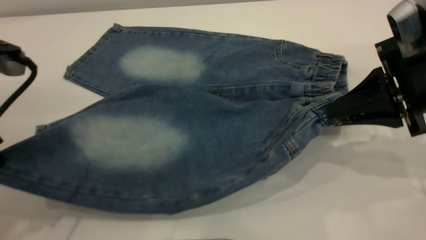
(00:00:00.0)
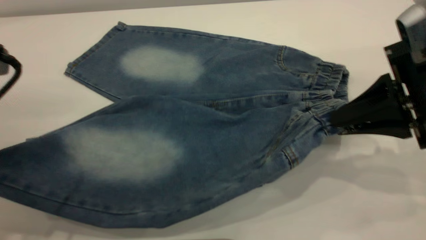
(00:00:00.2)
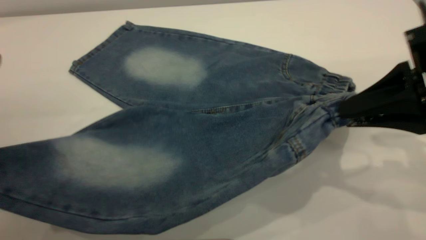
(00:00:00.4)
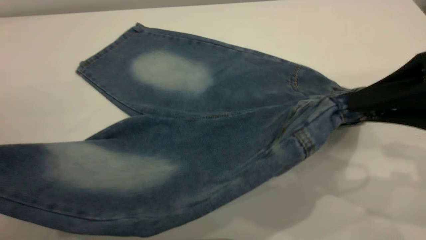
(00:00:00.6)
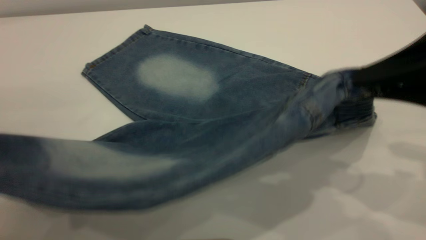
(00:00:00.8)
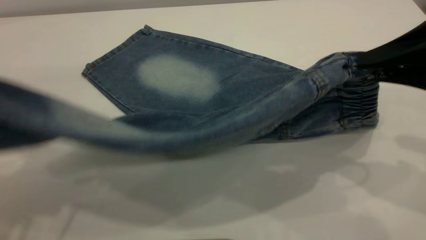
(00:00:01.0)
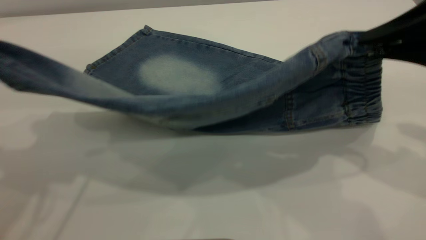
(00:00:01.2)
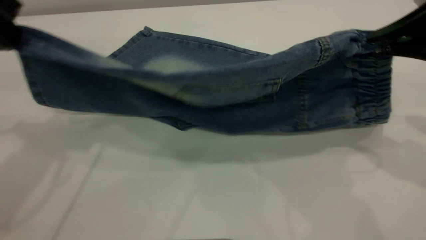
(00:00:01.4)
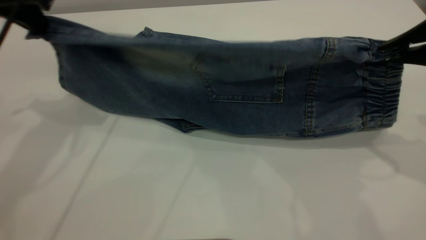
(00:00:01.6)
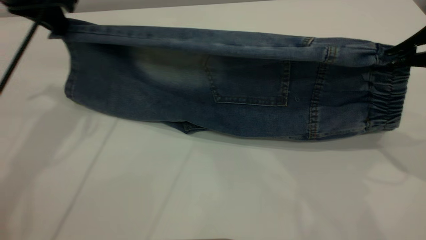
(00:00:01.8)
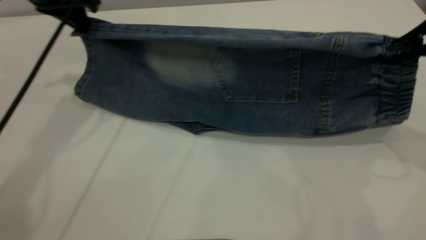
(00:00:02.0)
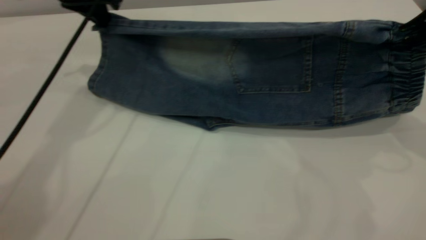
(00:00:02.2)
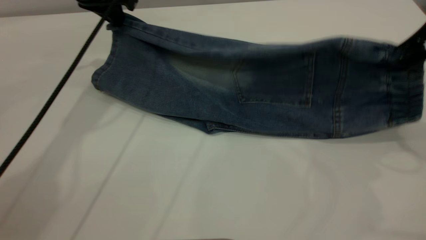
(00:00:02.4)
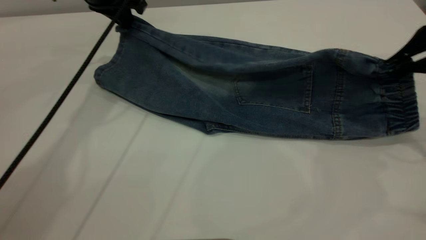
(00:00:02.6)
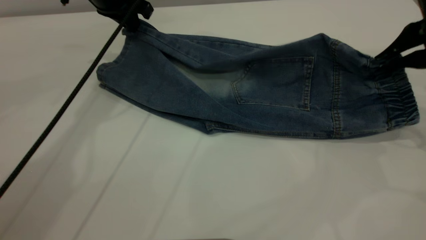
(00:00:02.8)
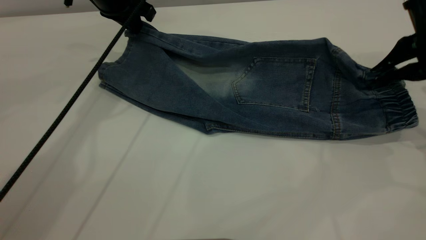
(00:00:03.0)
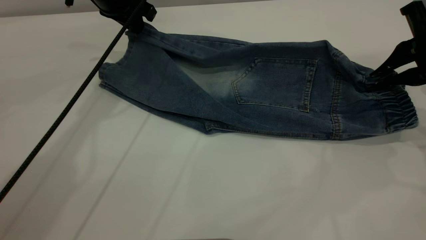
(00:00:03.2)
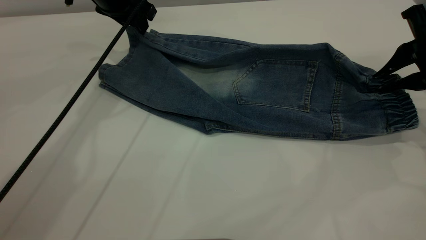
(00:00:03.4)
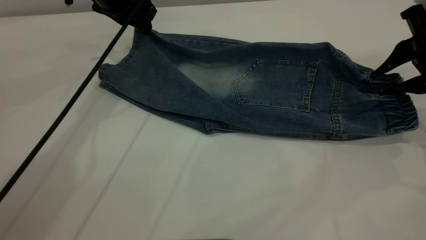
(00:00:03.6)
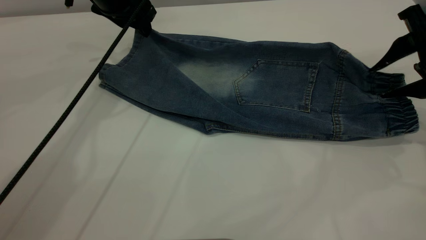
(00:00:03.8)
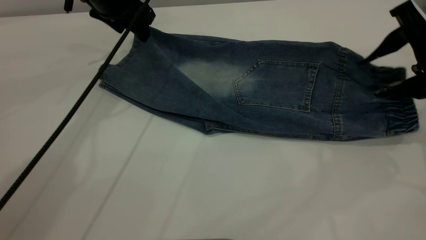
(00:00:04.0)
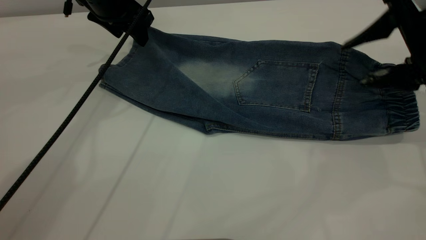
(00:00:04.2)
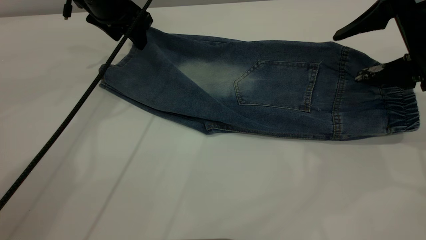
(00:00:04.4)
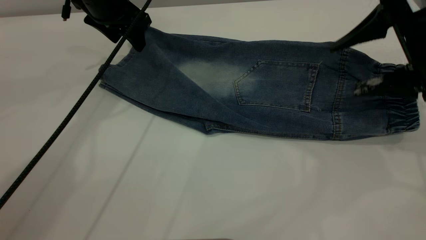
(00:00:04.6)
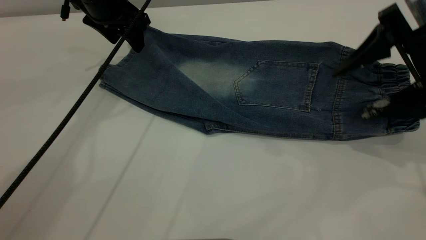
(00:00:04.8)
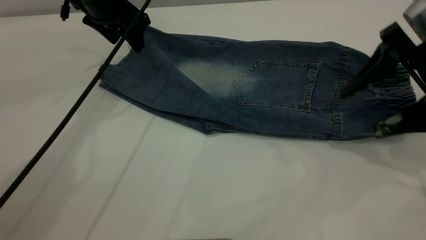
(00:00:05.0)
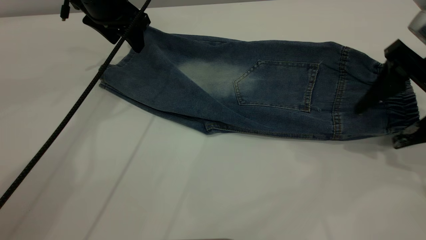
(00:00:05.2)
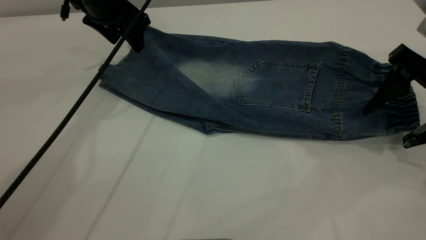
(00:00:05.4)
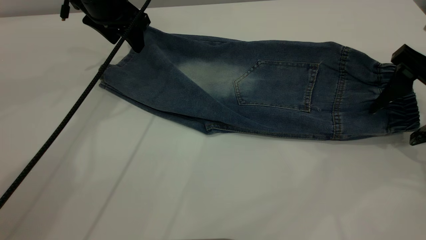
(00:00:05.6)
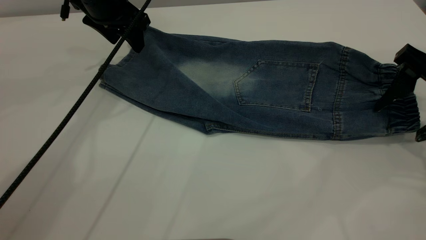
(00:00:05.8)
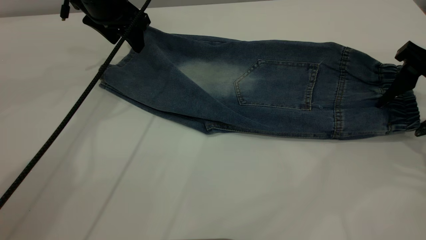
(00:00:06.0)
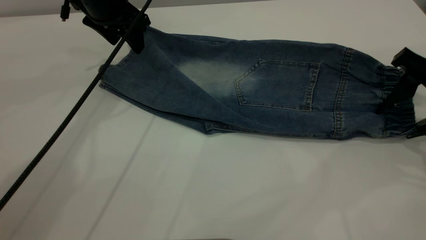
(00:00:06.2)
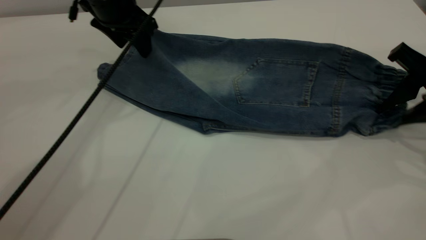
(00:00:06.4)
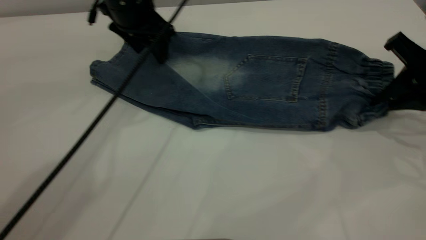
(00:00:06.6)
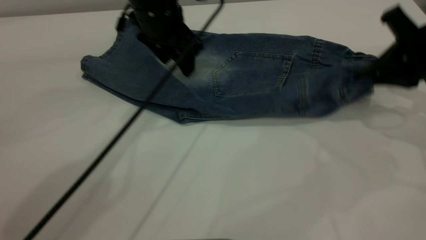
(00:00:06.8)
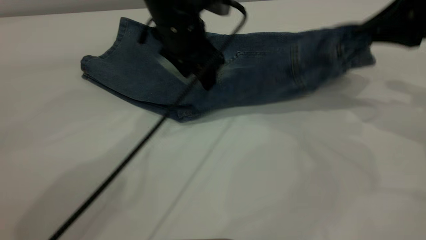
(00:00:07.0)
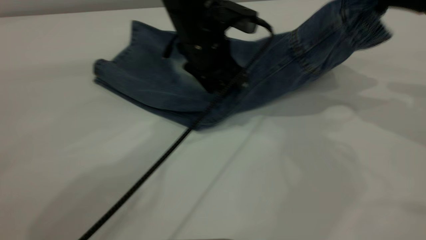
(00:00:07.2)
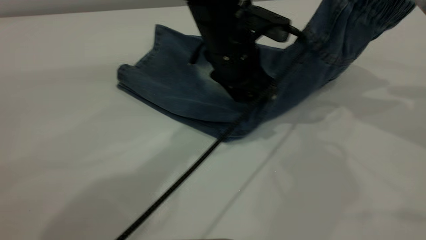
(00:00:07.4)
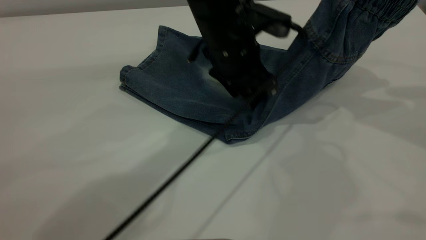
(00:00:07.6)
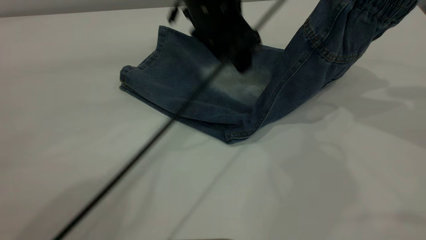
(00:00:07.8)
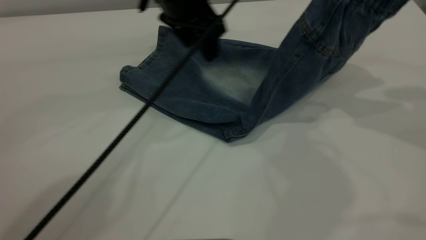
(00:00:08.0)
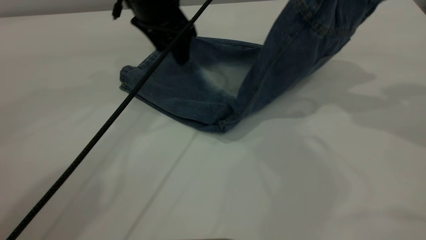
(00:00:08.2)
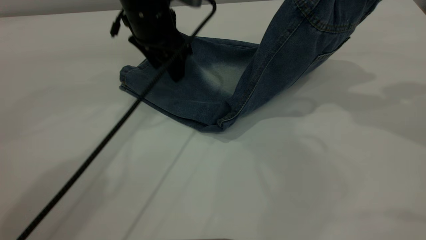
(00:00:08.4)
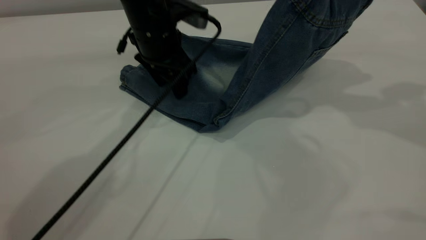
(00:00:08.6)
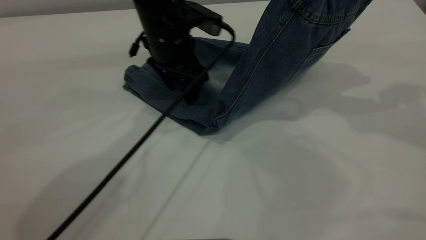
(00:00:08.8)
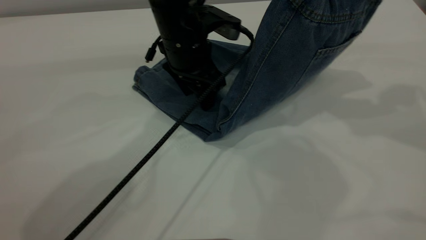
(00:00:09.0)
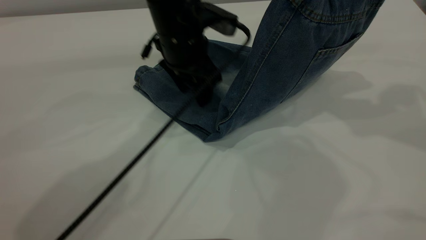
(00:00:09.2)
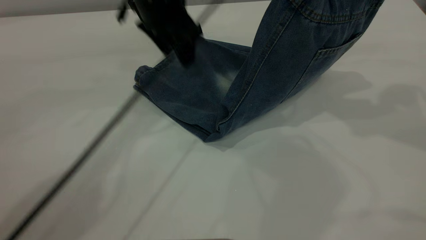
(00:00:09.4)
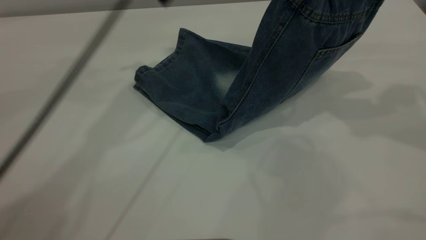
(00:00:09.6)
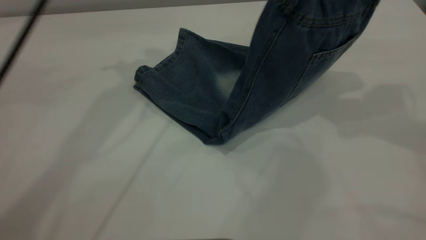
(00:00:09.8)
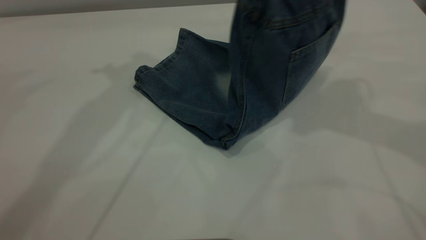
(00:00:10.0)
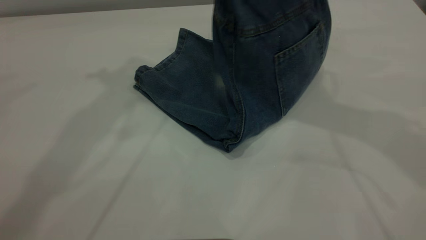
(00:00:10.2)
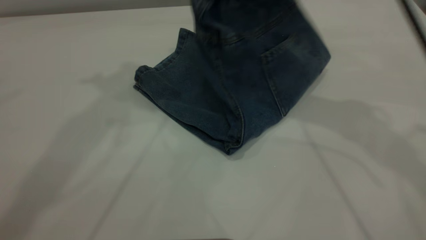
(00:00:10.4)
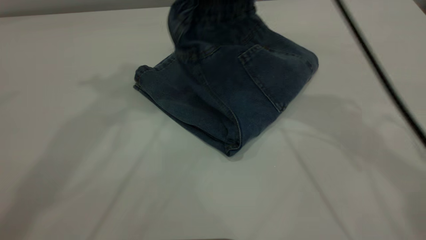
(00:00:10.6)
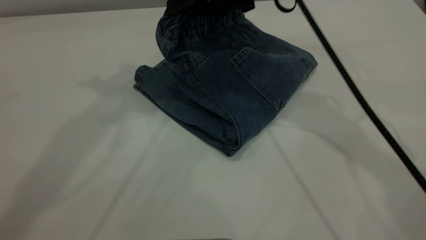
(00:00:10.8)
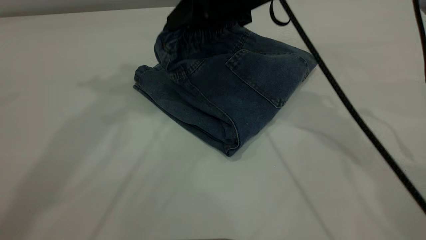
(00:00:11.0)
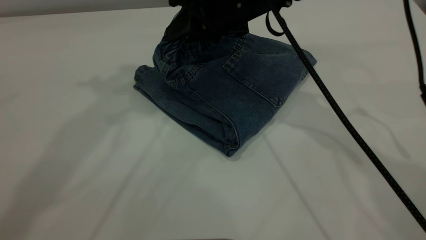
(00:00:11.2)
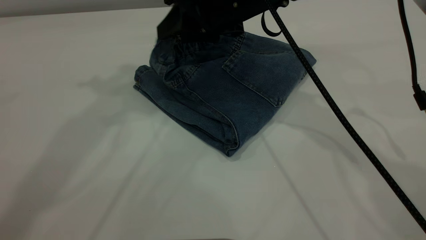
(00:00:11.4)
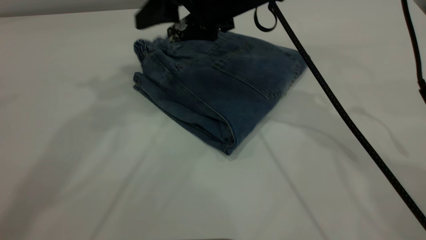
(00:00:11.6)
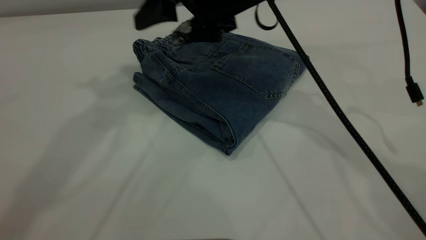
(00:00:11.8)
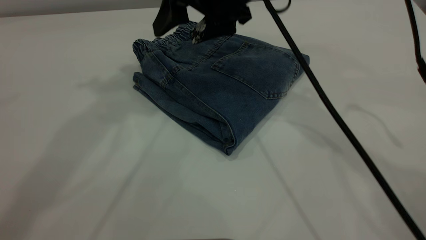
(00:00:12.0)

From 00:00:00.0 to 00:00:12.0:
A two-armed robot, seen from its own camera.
Step, from 00:00:00.0 to 00:00:05.2: Fold the bottom of the pants upward.
From 00:00:00.0 to 00:00:01.6: The right gripper moves upward, roughly 10 cm, while the left gripper shifts about 15 cm forward and upward.
From 00:00:01.6 to 00:00:03.0: The right gripper shifts some 10 cm forward and downward. The left gripper shifts about 15 cm forward, to the right and downward.
From 00:00:03.0 to 00:00:04.4: The left gripper opens up. Meanwhile the right gripper opens.
From 00:00:06.0 to 00:00:07.6: The right gripper moves upward, some 15 cm, and closes its fingers; the left gripper moves to the right and backward, roughly 20 cm.
From 00:00:07.6 to 00:00:09.0: The left gripper shifts approximately 5 cm to the left.
From 00:00:09.0 to 00:00:10.4: The left gripper travels upward by about 30 cm. Meanwhile the right gripper travels to the left and forward by about 15 cm.
From 00:00:10.4 to 00:00:12.0: The right gripper travels to the left by some 5 cm, and opens its fingers.

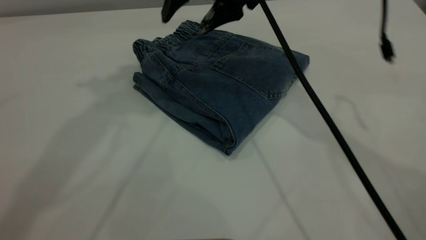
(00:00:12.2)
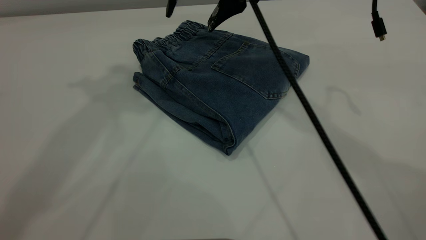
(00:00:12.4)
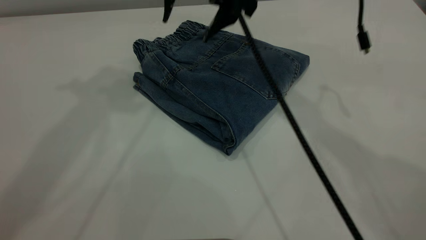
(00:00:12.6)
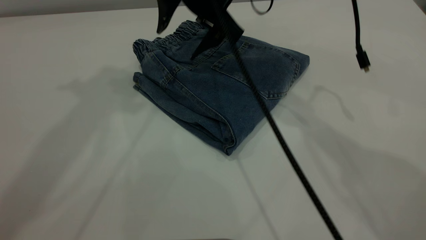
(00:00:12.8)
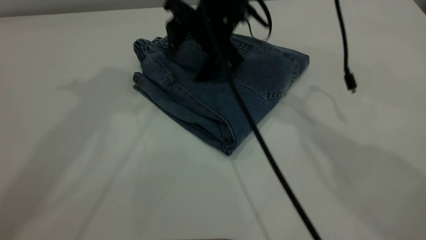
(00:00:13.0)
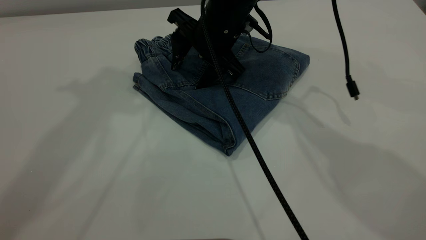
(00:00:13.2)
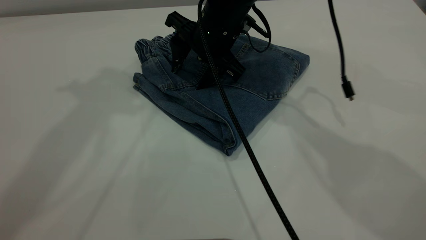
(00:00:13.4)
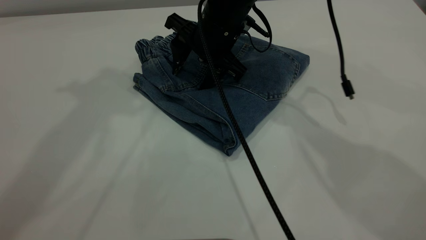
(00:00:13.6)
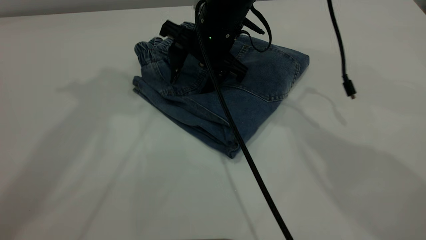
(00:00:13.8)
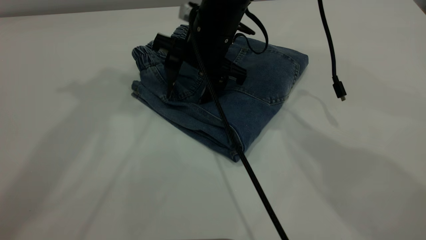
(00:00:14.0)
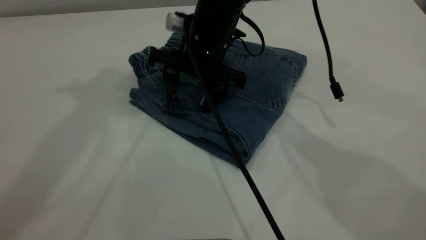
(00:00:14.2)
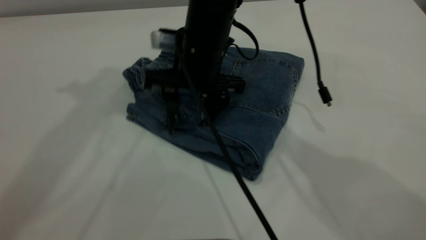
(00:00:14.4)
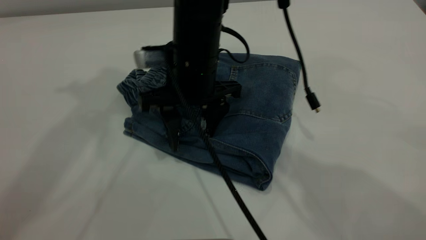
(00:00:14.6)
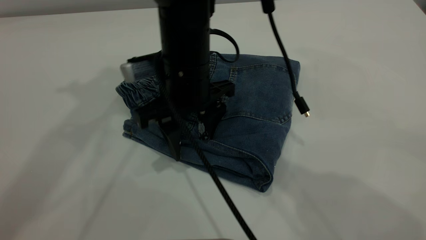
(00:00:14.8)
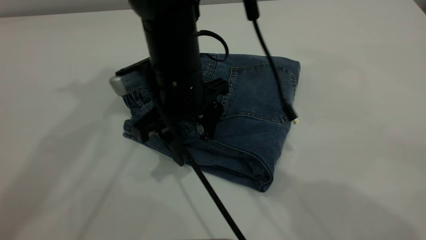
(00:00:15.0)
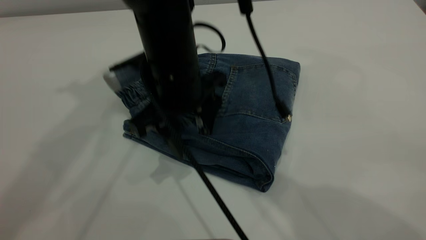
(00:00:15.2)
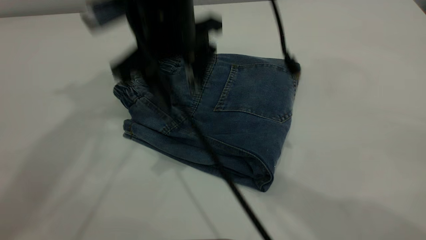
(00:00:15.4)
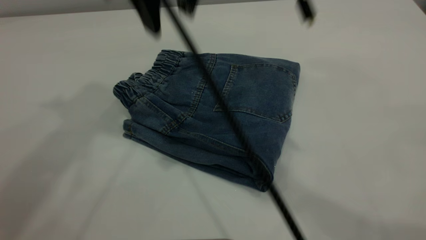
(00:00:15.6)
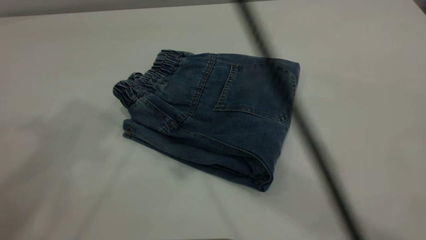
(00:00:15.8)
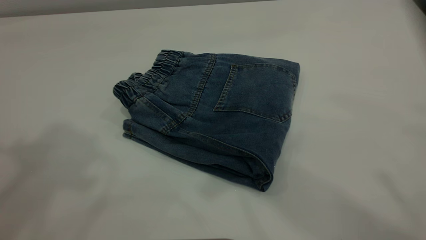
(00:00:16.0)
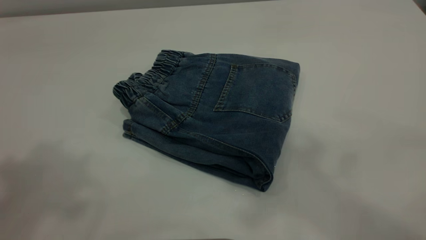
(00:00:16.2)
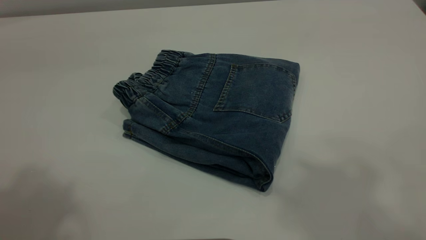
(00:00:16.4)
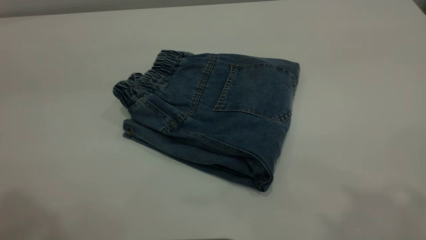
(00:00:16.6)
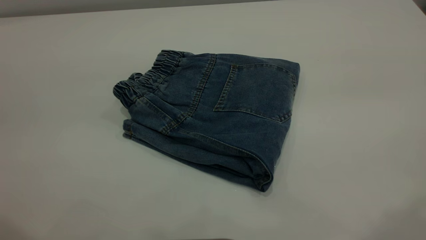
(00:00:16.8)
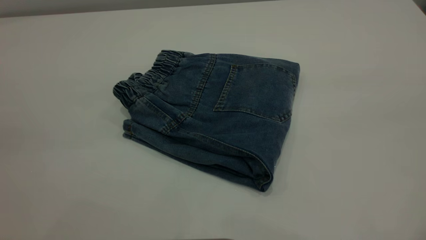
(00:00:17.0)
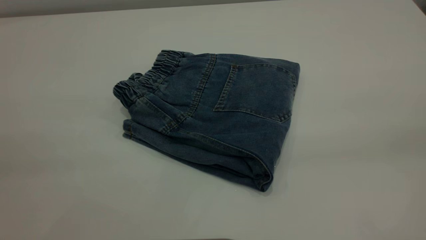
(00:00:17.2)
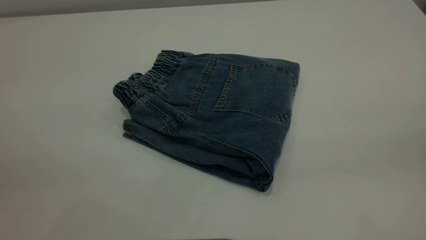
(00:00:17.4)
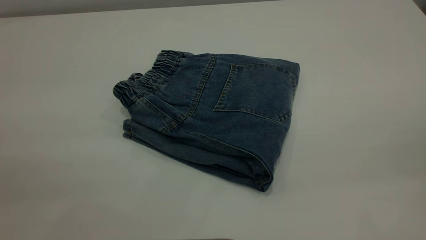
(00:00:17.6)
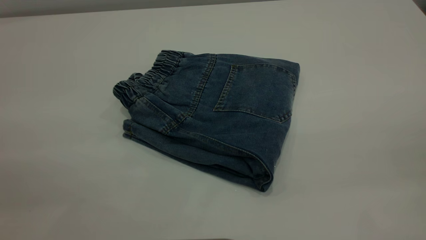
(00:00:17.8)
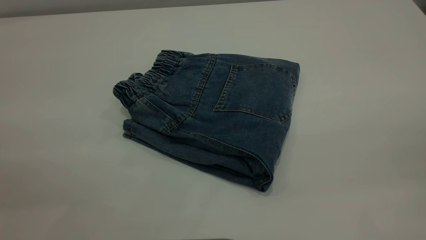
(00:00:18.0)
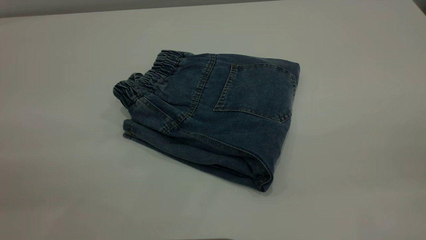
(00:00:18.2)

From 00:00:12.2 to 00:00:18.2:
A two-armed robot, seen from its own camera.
From 00:00:12.2 to 00:00:13.8: The right gripper goes roughly 10 cm downward.
From 00:00:13.8 to 00:00:15.2: The right gripper is displaced backward and to the left by roughly 10 cm.
From 00:00:15.2 to 00:00:16.6: The left gripper heads backward, covering about 20 cm. The right gripper is displaced upward, to the right and backward by some 40 cm.
